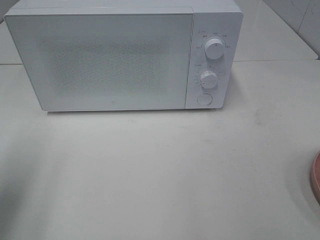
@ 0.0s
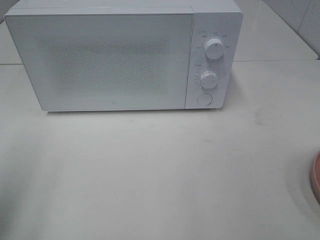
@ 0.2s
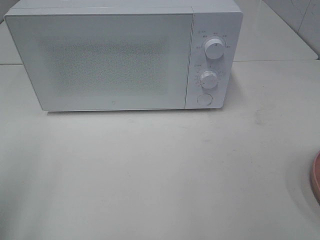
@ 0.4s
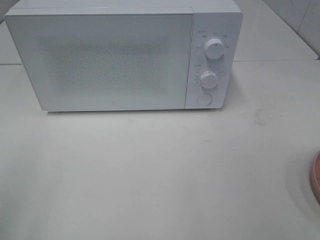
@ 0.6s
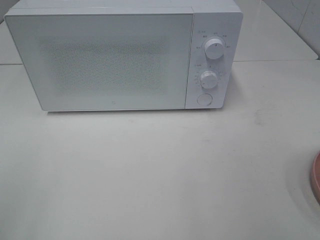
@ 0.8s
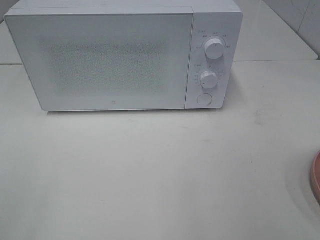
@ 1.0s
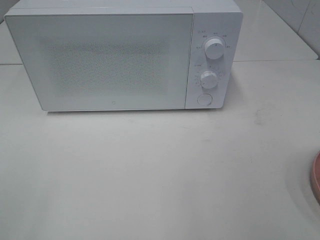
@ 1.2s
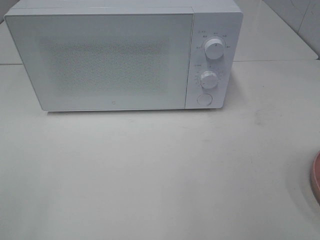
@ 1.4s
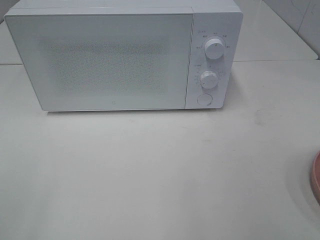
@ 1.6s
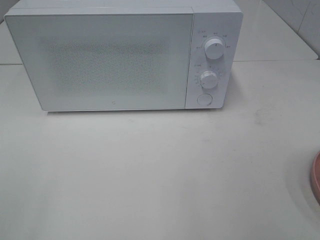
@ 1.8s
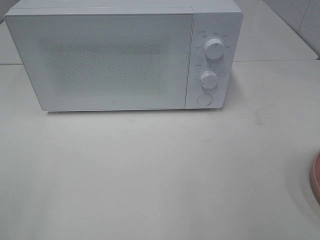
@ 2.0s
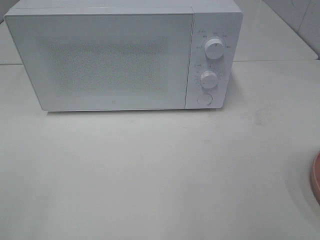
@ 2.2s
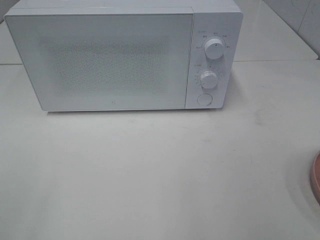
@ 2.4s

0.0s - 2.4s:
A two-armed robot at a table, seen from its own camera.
Task of the whole recording: Heat the burger.
0.0s - 1.2s: The left gripper is displaced backward by some 15 cm.
1.2s - 2.4s: The two grippers keep their place.

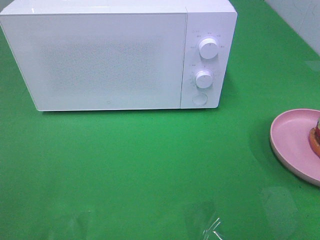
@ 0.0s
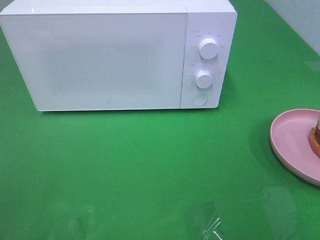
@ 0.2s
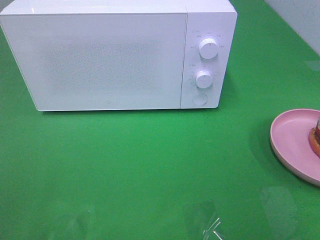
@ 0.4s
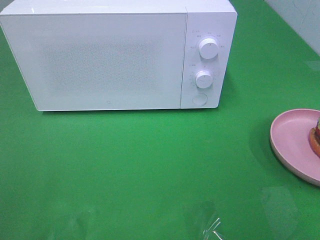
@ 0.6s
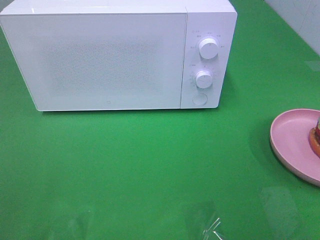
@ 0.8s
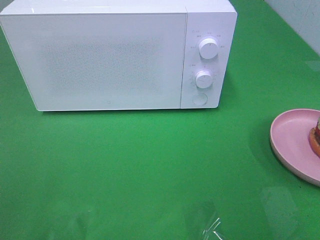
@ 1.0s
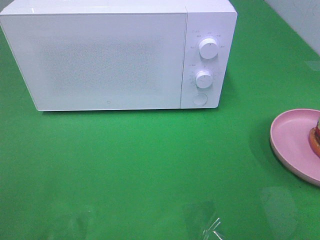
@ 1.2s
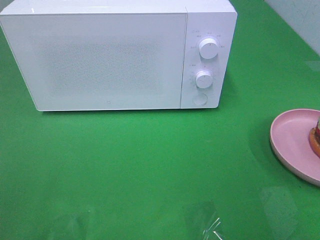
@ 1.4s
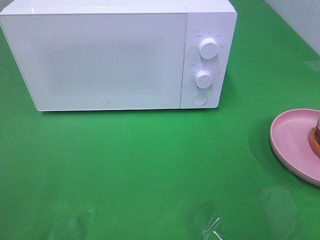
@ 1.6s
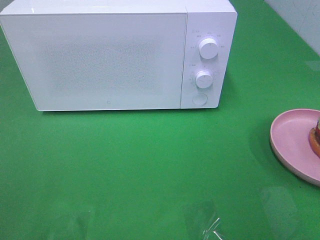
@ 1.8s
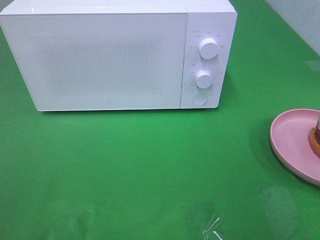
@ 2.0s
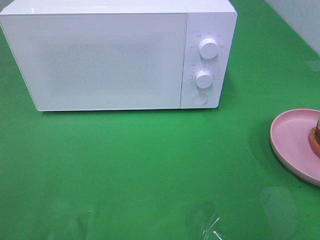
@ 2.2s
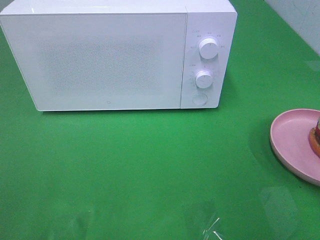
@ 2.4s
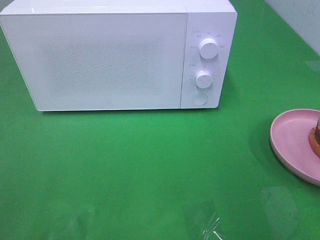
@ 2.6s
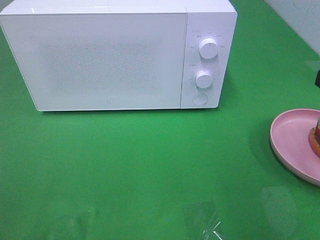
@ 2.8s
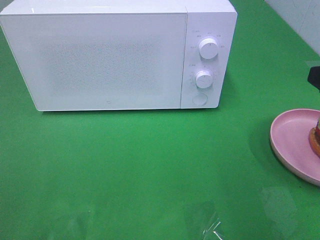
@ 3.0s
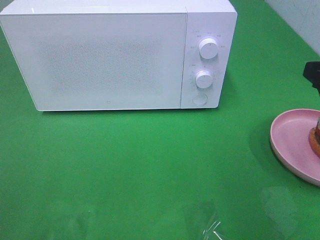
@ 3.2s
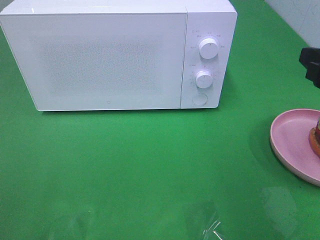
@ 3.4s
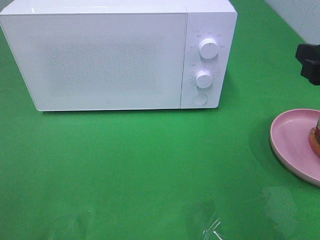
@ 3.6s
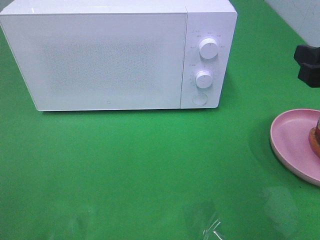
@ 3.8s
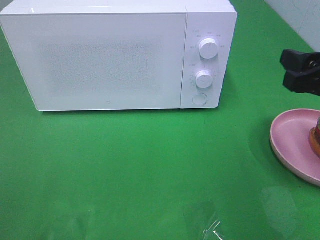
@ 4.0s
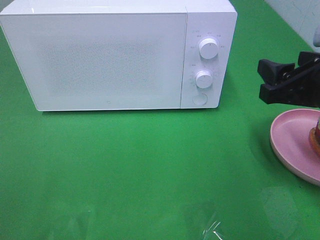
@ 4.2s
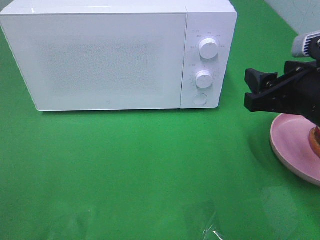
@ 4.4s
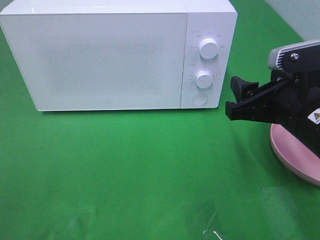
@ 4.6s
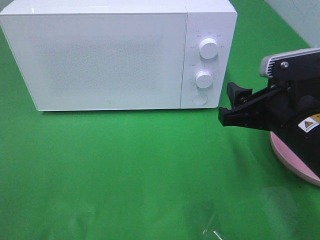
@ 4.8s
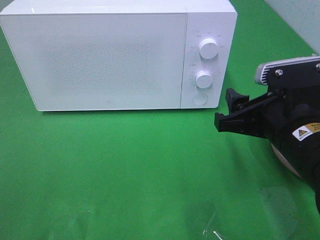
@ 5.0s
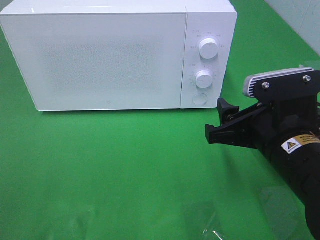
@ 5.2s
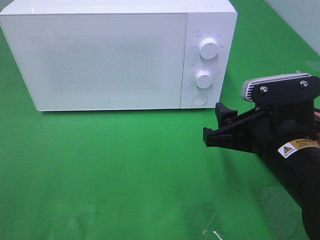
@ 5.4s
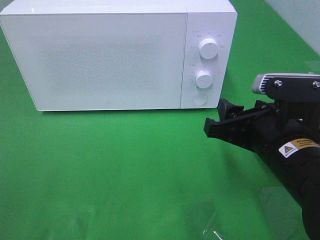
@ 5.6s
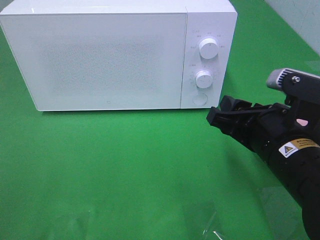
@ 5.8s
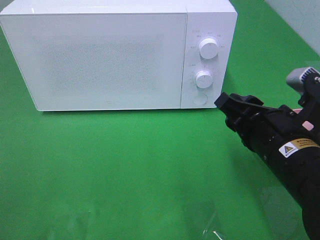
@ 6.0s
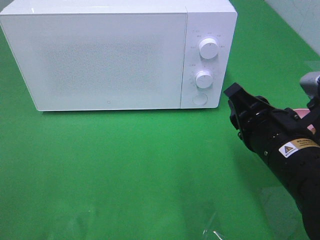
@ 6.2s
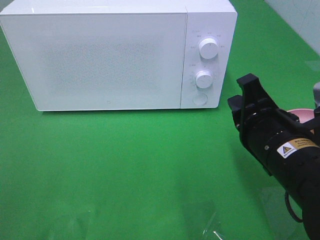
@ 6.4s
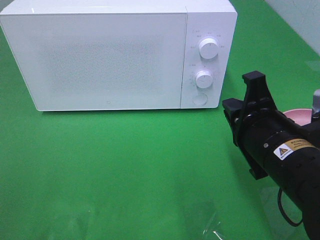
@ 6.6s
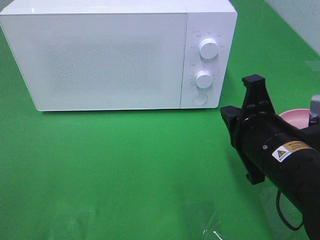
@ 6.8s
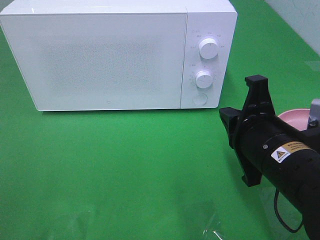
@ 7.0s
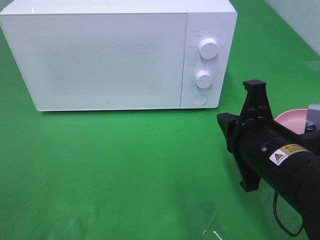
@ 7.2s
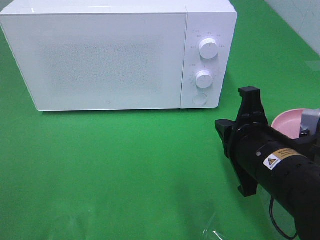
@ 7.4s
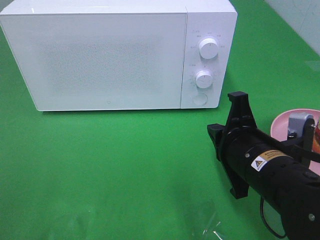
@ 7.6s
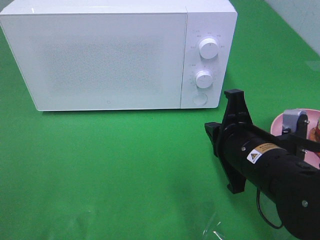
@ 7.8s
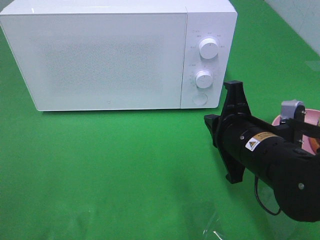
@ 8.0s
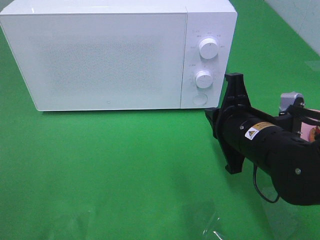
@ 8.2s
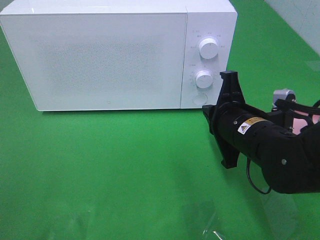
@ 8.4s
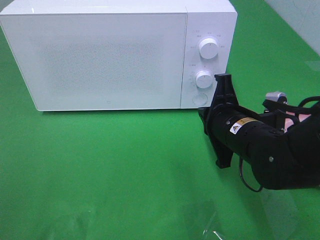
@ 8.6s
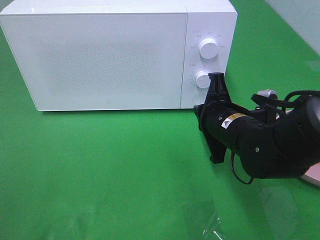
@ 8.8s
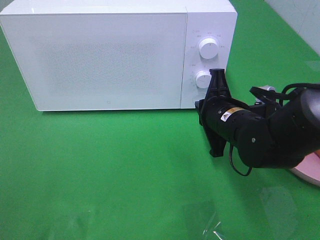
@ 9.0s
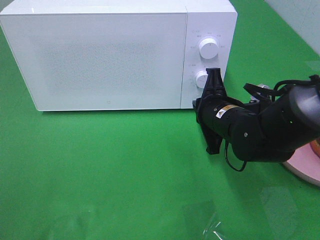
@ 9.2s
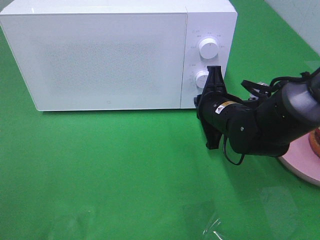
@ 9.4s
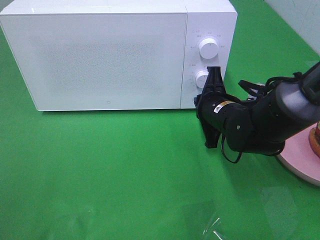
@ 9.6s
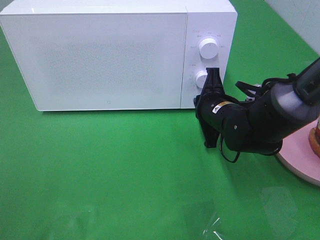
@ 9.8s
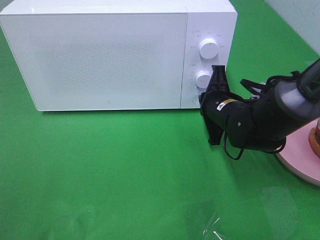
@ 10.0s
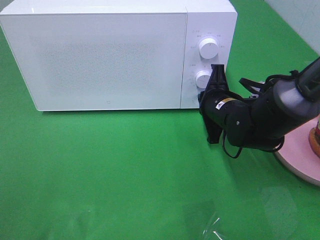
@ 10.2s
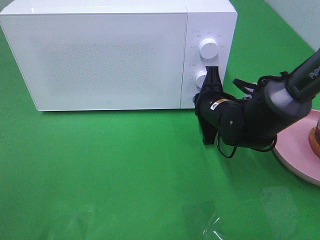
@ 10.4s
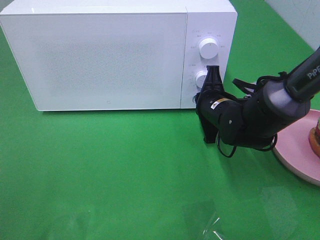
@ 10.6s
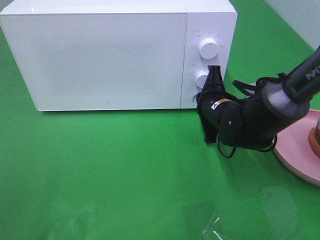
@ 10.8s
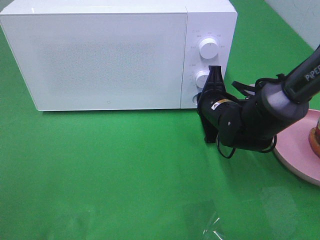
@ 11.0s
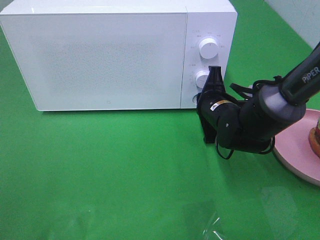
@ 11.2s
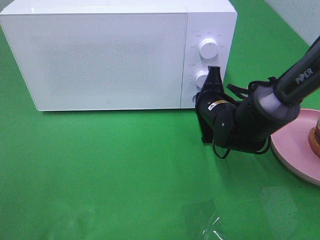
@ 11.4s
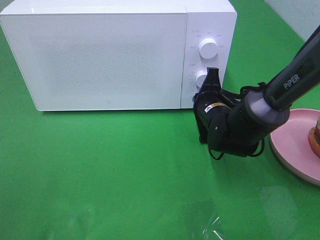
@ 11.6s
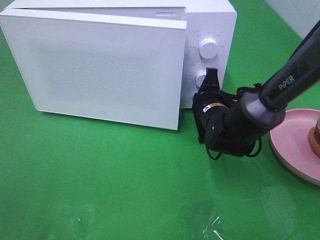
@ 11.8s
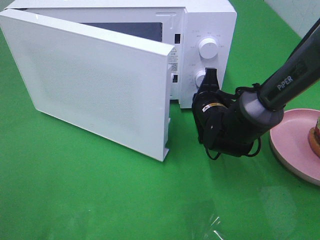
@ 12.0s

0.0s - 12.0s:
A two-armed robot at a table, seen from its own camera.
Task of the whole recording: Heat the burger.
3.0s - 4.4s: The right gripper is displaced to the left by some 5 cm.
4.4s - 6.0s: The right gripper moves to the left, approximately 5 cm.
6.0s - 7.6s: The right gripper closes its fingers.
7.6s - 9.0s: The right gripper is displaced forward by about 10 cm.
9.0s - 10.4s: The right gripper is displaced forward by some 5 cm.
10.4s - 12.0s: There are only small adjustments of the grippers.

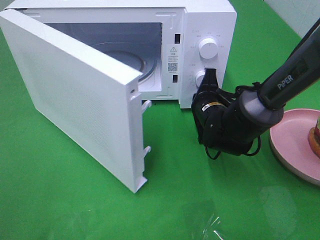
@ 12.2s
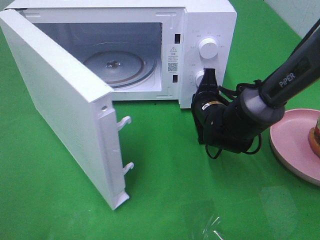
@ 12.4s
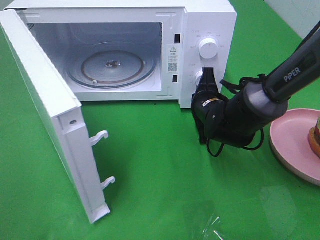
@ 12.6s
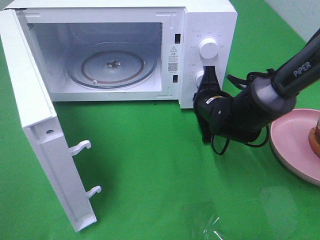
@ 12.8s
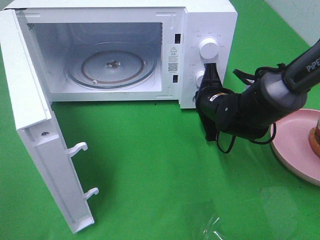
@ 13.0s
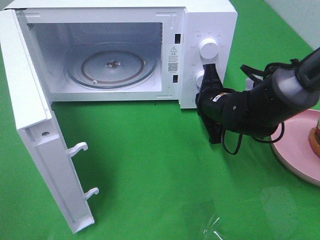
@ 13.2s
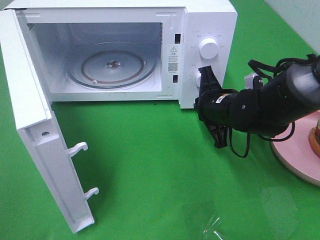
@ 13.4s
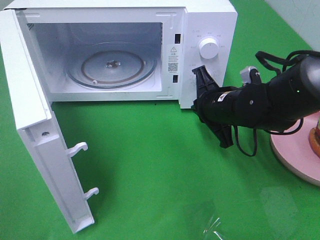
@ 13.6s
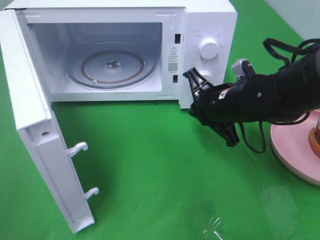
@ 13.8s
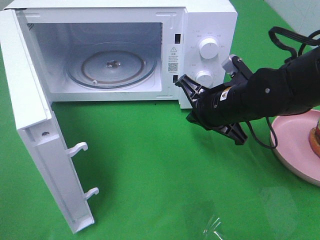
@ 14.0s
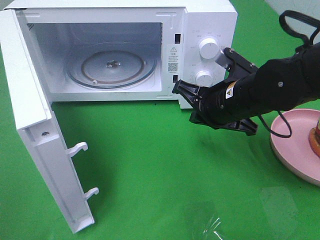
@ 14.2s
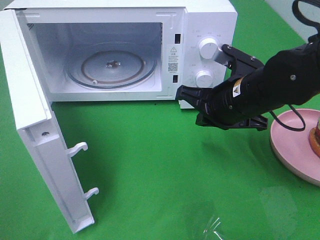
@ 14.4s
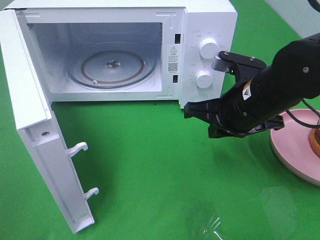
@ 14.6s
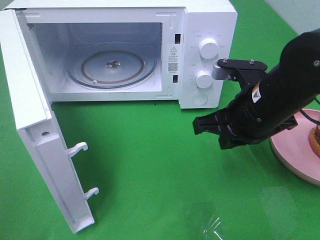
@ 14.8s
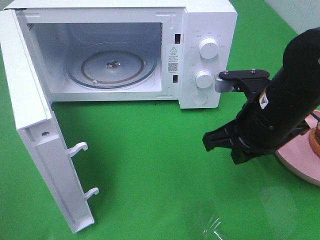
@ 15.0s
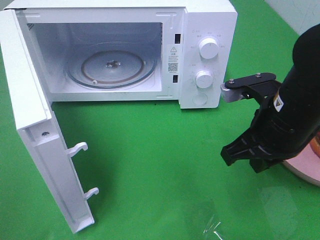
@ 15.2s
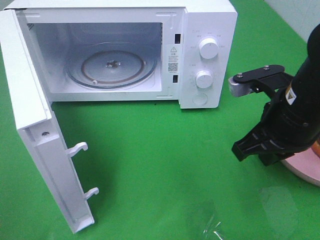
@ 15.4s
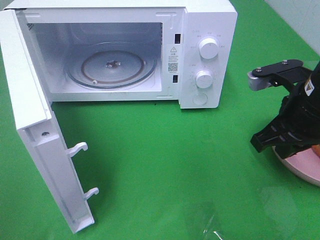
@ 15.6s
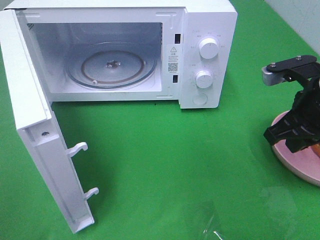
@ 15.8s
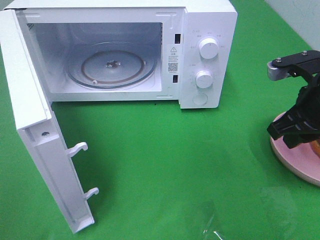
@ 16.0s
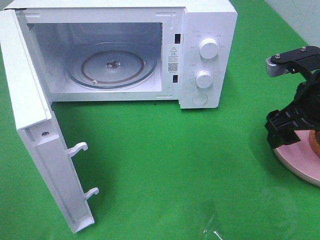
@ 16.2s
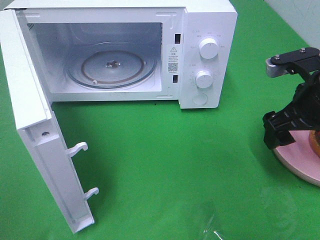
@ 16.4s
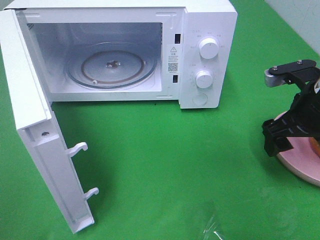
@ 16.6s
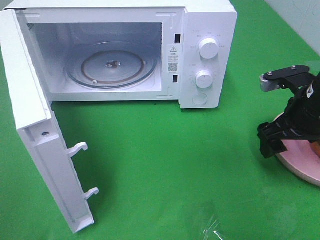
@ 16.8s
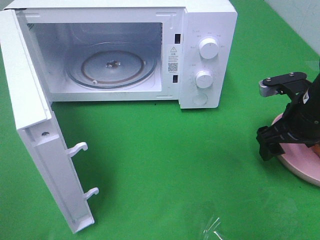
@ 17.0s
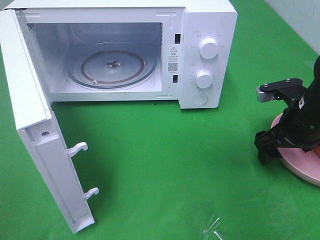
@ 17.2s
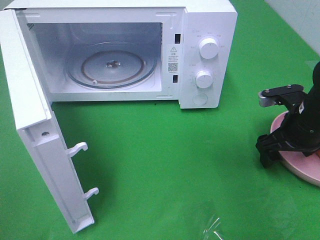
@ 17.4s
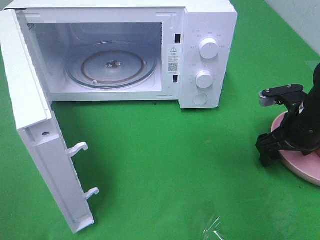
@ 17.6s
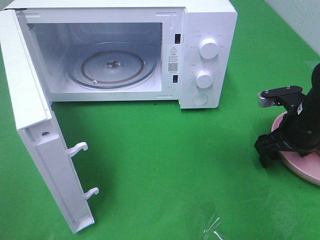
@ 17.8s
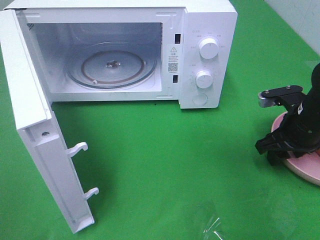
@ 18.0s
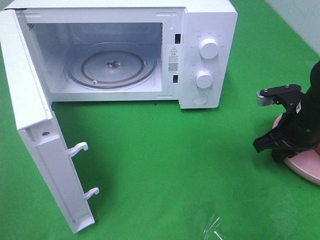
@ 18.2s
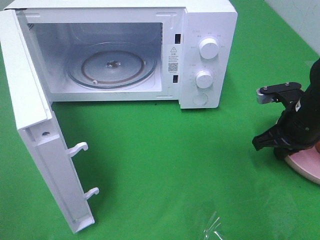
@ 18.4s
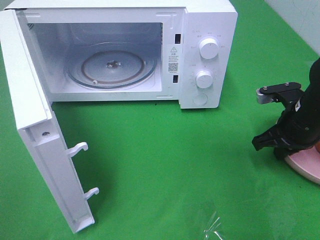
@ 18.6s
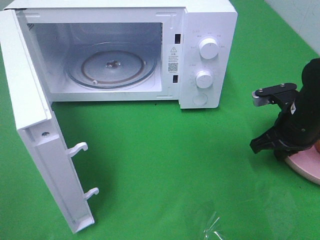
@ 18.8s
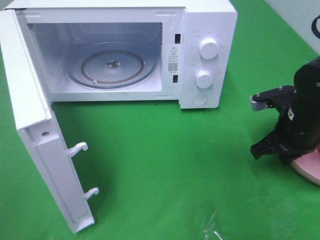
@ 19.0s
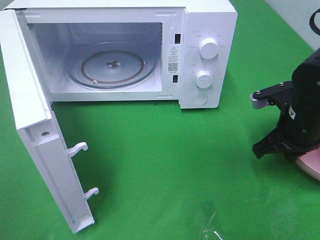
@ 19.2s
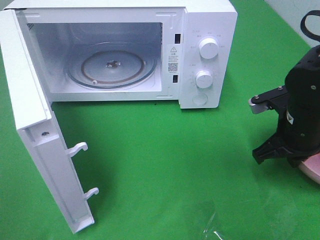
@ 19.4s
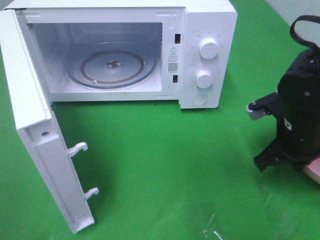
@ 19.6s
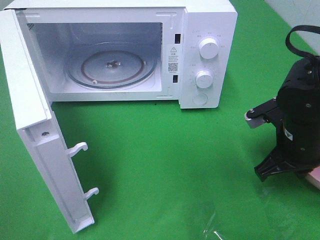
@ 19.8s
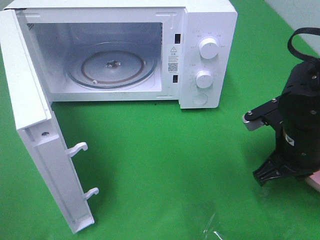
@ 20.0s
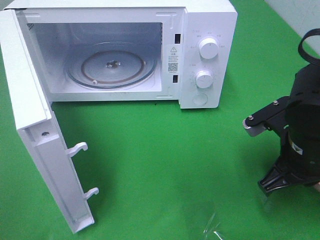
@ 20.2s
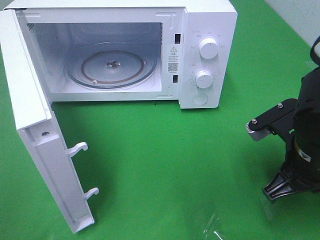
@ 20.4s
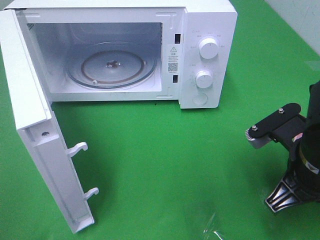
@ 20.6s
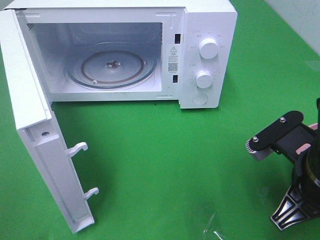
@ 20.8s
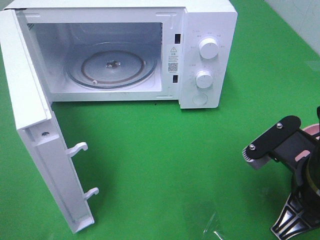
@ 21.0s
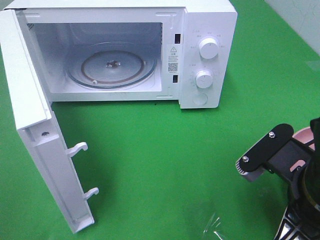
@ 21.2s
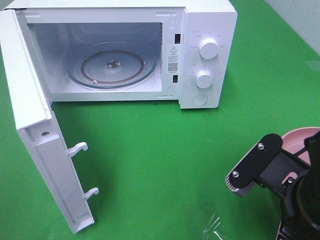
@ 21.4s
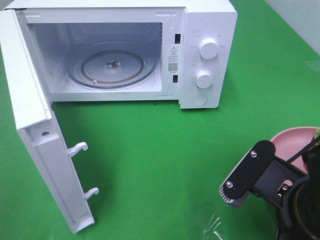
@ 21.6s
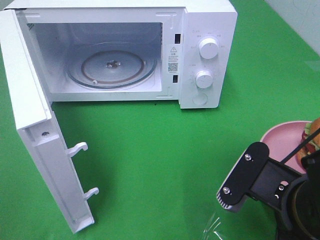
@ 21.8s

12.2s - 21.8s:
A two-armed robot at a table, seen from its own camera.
Task of the whole recording: Heat the burger.
Step, 14.0s - 18.6s: Right hand: grab the plate with the hamburger.
12.2s - 13.8s: The right gripper is displaced upward by about 5 cm.
13.8s - 15.4s: The right gripper travels backward, upward and to the right by about 10 cm.
15.4s - 17.0s: The right gripper travels to the right, forward and downward by about 10 cm, and opens.
17.0s - 18.6s: The right gripper closes up.
18.6s - 20.2s: The right gripper moves backward and to the left, roughly 10 cm.
20.2s - 21.8s: The right gripper goes about 10 cm backward and to the left.
